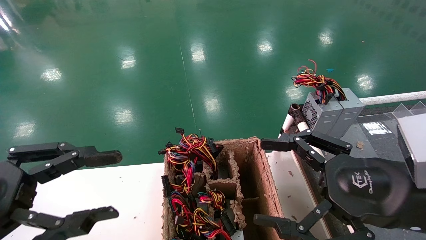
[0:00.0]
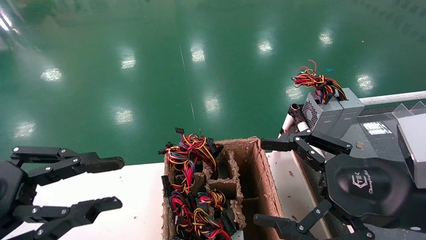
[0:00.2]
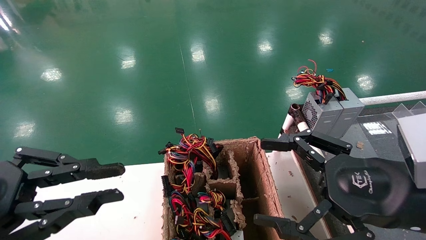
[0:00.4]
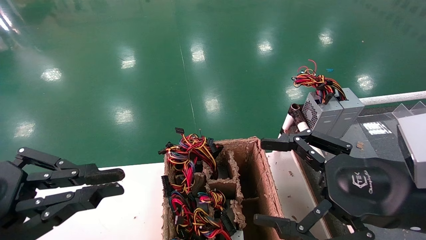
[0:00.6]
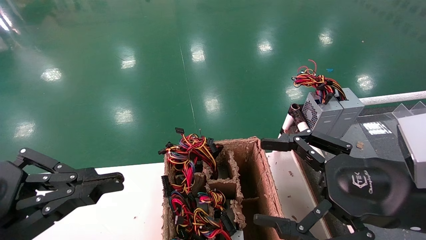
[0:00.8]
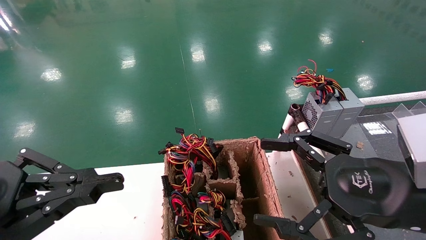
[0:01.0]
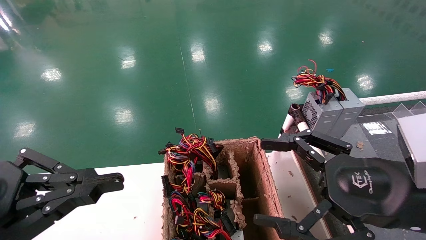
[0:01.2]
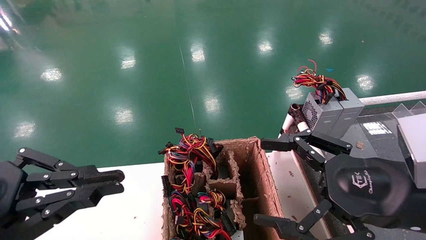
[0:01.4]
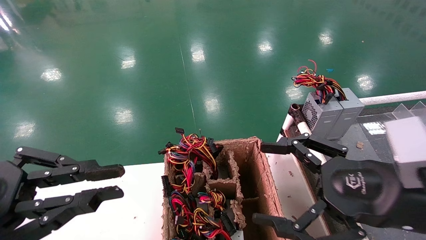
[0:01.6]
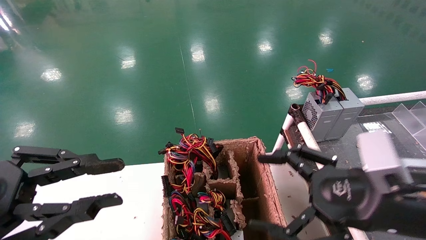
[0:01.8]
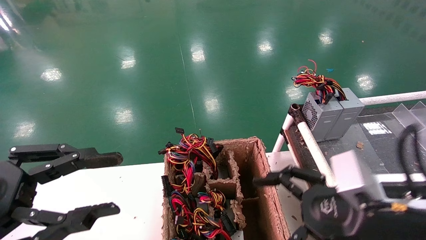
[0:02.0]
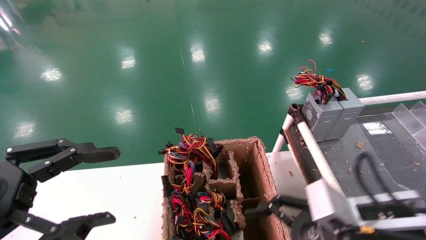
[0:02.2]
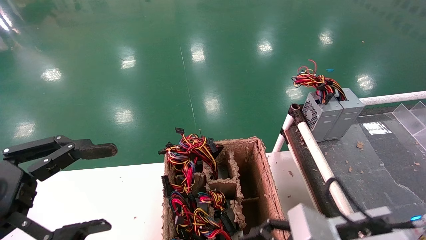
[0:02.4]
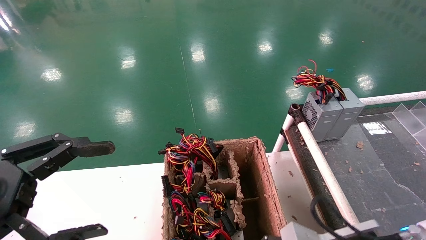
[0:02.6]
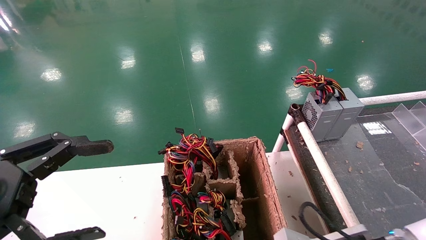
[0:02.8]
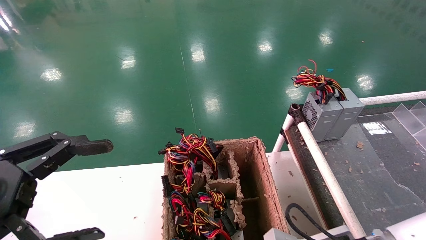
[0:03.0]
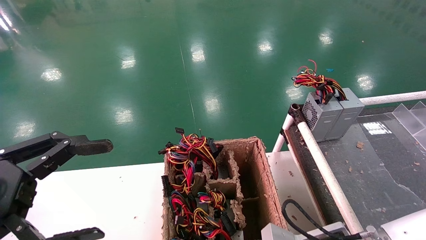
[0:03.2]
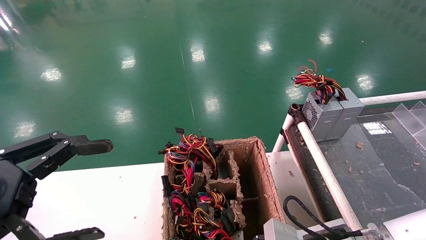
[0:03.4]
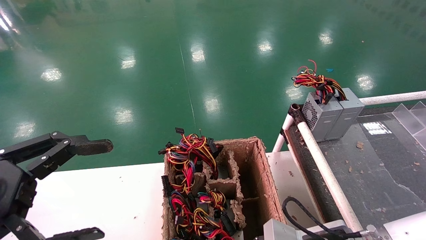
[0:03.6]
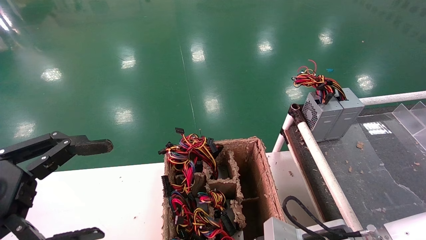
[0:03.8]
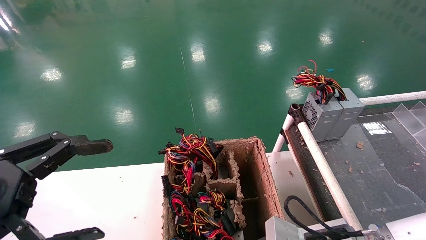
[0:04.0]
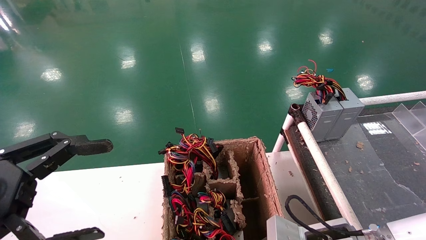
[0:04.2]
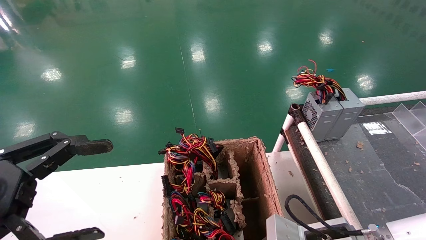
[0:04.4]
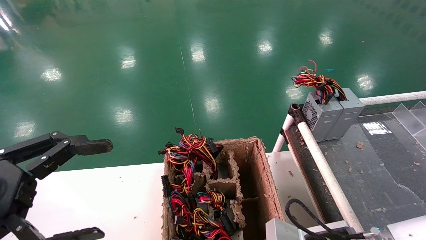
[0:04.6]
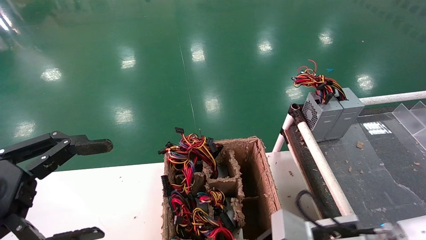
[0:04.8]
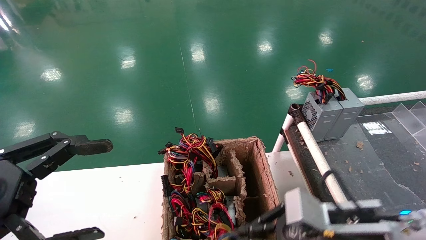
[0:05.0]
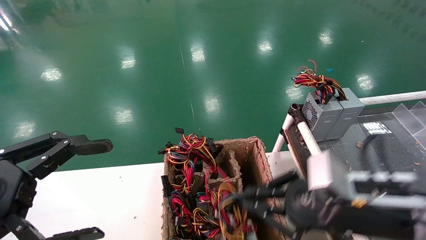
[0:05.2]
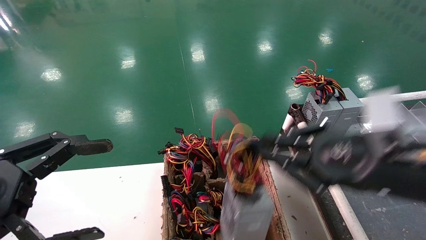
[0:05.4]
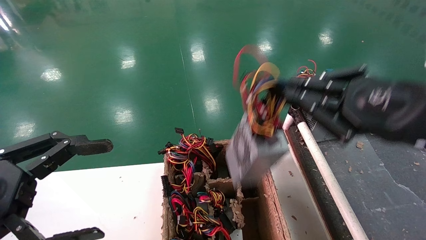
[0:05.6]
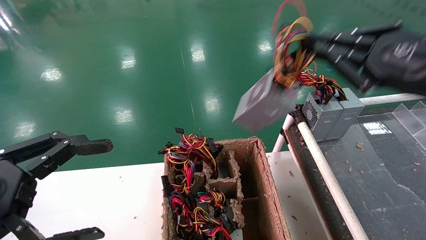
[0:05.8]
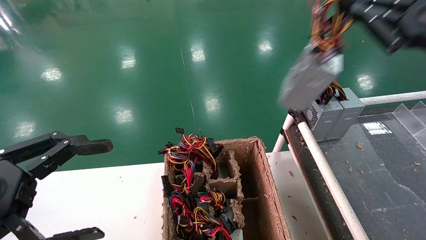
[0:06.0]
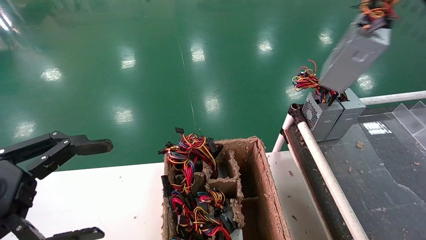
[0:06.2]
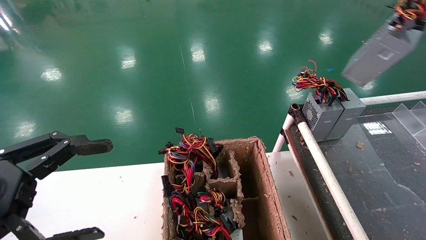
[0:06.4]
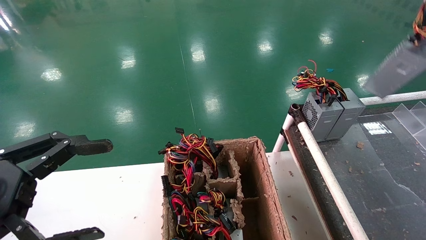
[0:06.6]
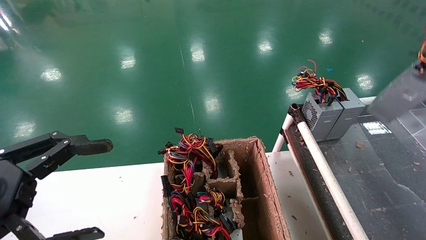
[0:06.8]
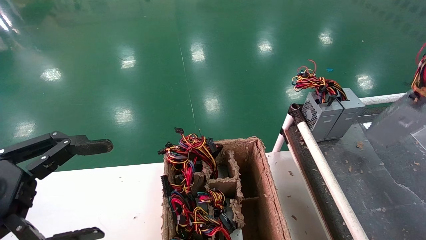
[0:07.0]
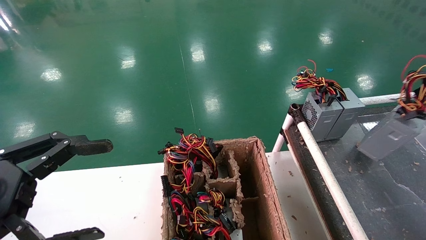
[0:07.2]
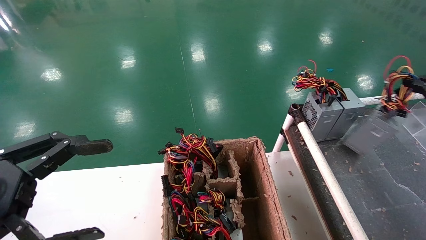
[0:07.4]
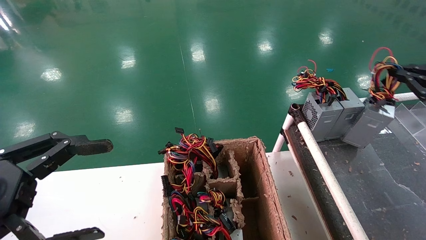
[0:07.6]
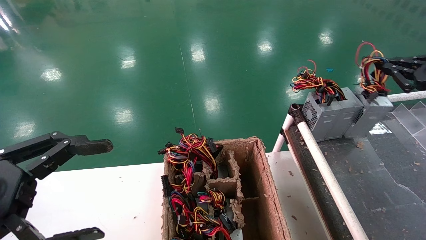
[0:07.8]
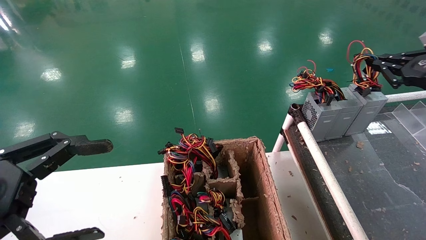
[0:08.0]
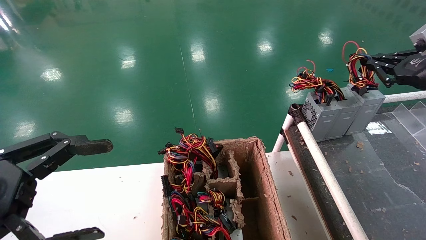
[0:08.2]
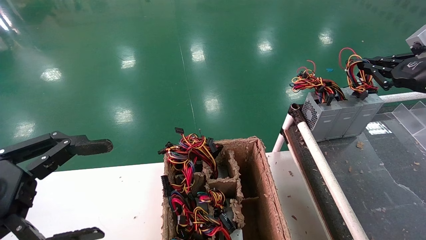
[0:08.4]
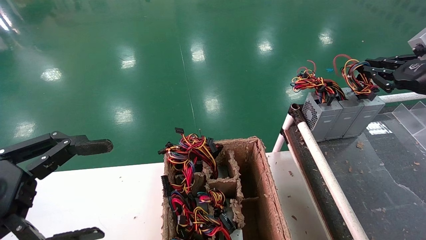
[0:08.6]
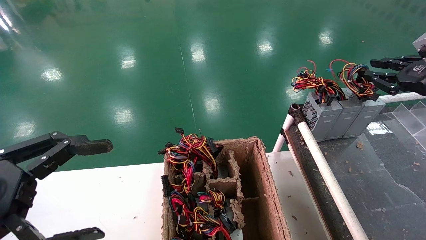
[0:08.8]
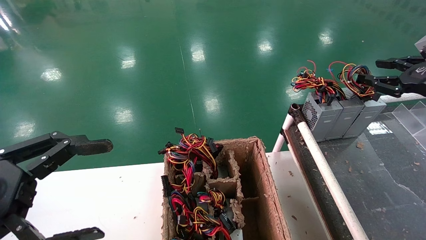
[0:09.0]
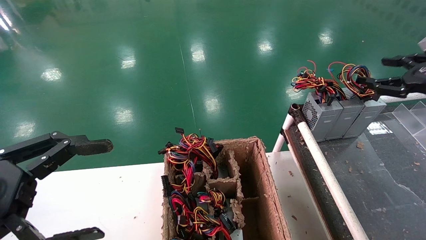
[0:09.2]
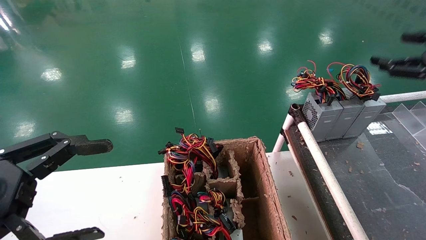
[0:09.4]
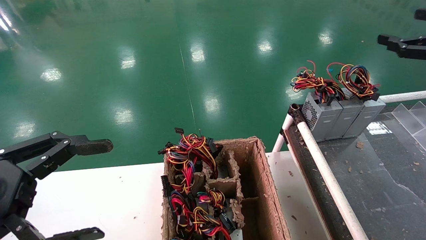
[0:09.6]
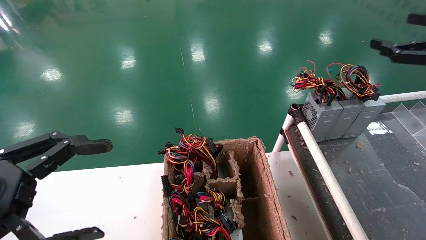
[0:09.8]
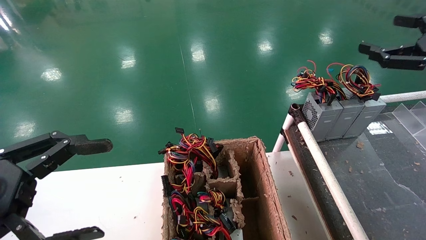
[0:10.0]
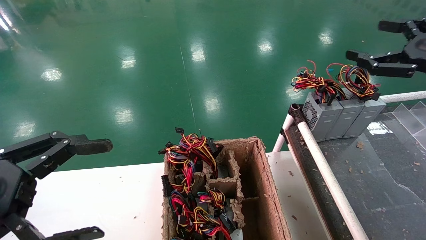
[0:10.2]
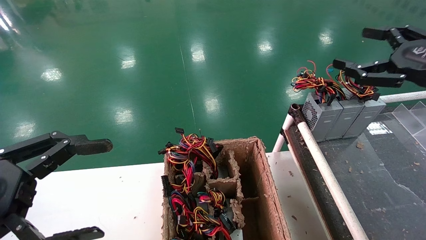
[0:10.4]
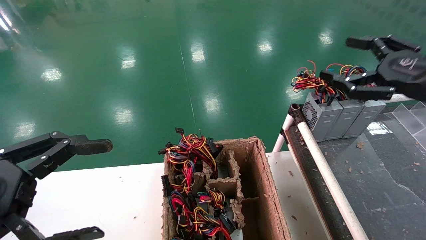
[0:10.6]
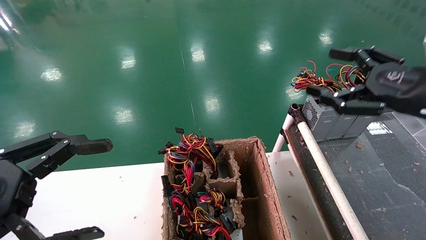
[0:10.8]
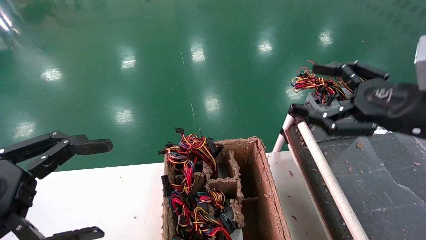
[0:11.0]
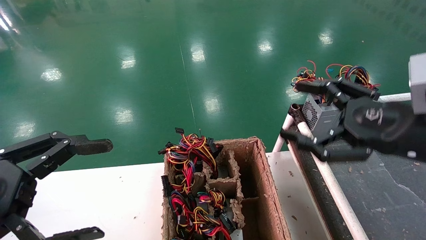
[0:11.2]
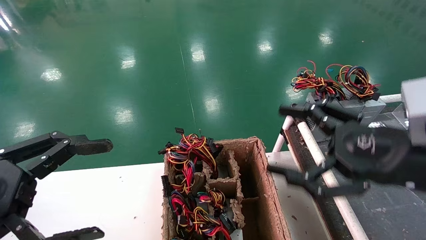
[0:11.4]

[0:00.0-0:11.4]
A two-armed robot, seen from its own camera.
Step, 0:01.4 to 0:05.4: Grab and lift the power supply from the large box.
Step, 0:05.6 to 0:10.2: Place the power supply on the operating table.
0:00.0 to 0:01.4: The left gripper closes.
0:01.4 to 0:02.8: The left gripper opens up; the right gripper travels downward and to the left by approximately 15 cm.
0:02.8 to 0:04.2: The right gripper closes its fingers.
0:04.2 to 0:05.6: The right gripper shifts some 20 cm upward.
0:05.6 to 0:07.2: The right gripper shifts roughly 25 cm to the right.
0:07.2 to 0:08.6: The right gripper goes approximately 10 cm forward and to the left.
0:08.6 to 0:10.0: The right gripper heads backward, covering approximately 5 cm, and opens its fingers.
0:10.0 to 0:11.4: The right gripper goes roughly 20 cm to the left, downward and backward.
